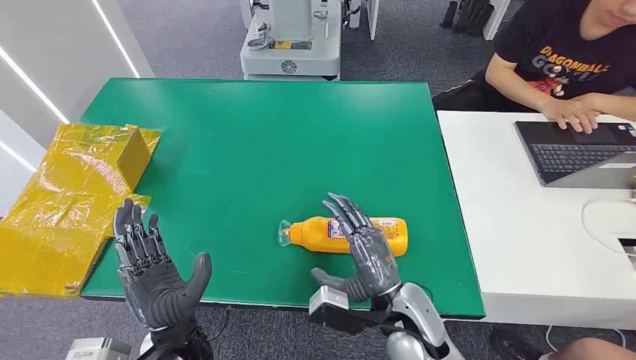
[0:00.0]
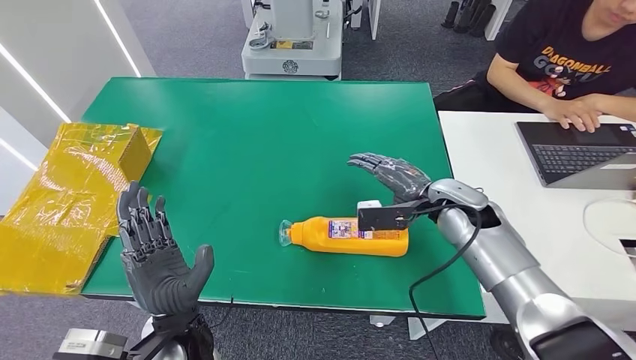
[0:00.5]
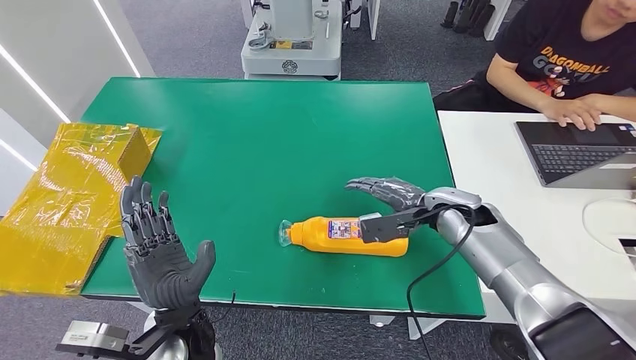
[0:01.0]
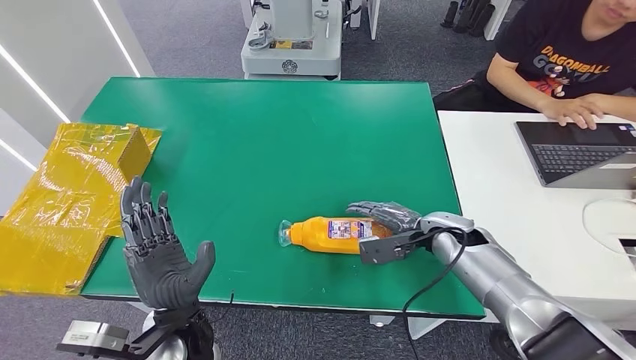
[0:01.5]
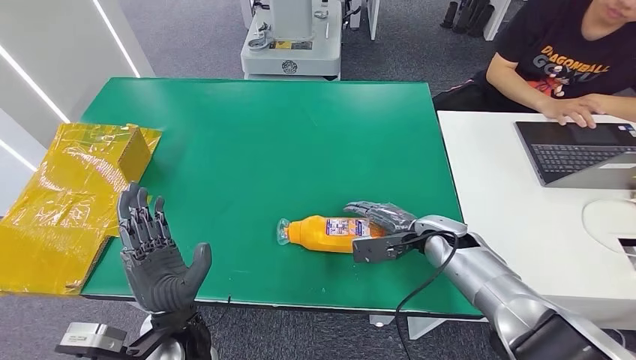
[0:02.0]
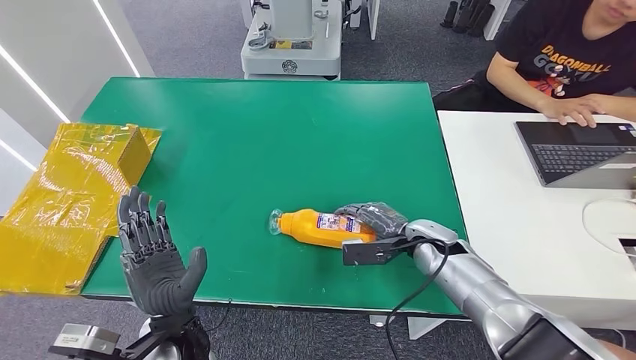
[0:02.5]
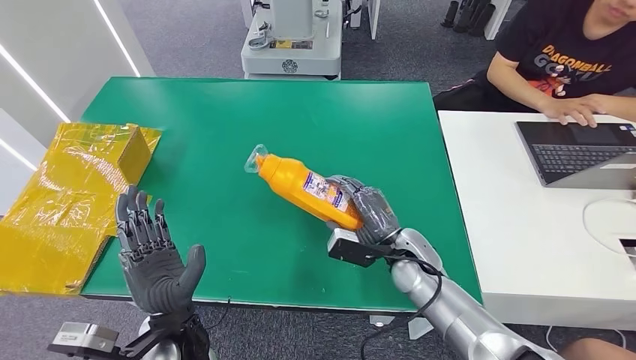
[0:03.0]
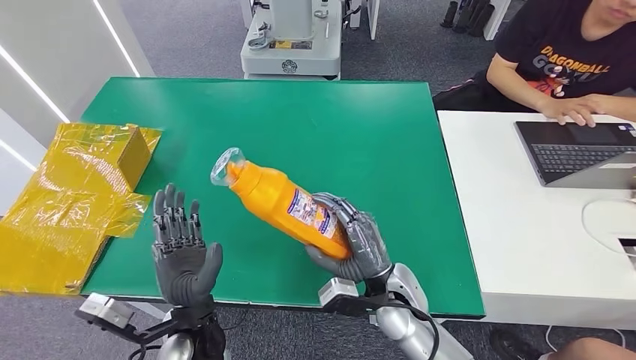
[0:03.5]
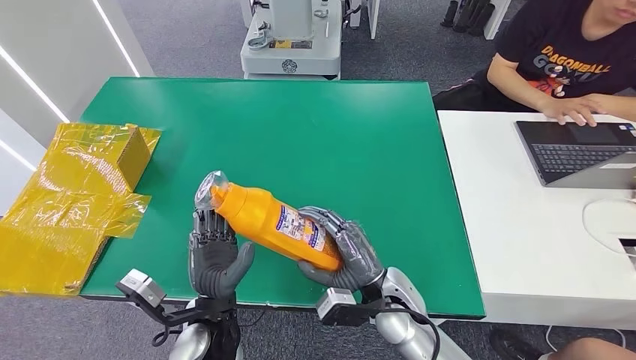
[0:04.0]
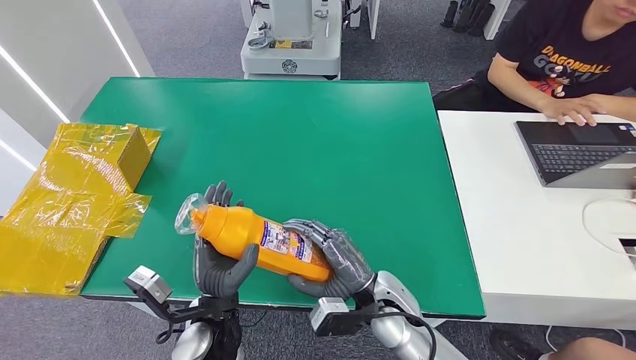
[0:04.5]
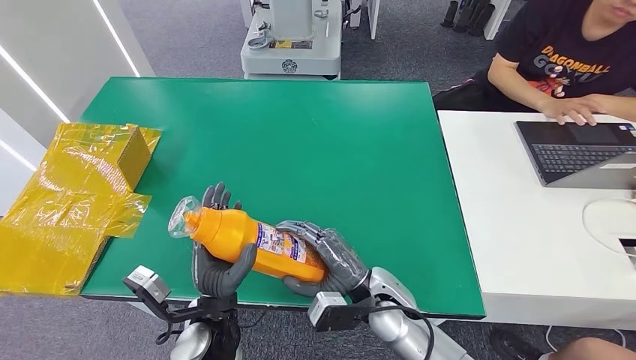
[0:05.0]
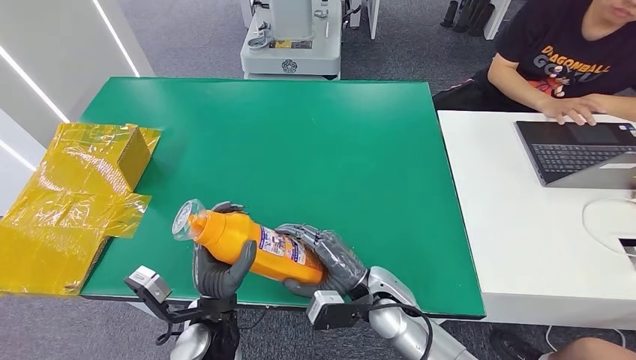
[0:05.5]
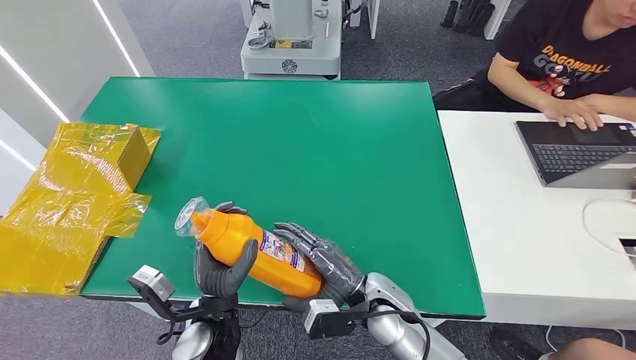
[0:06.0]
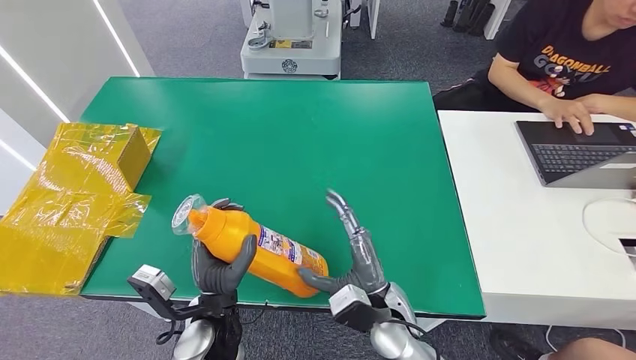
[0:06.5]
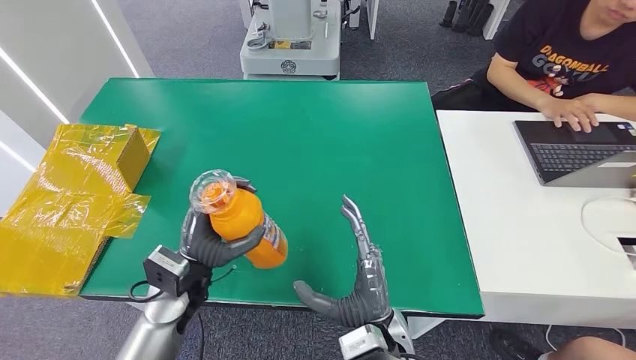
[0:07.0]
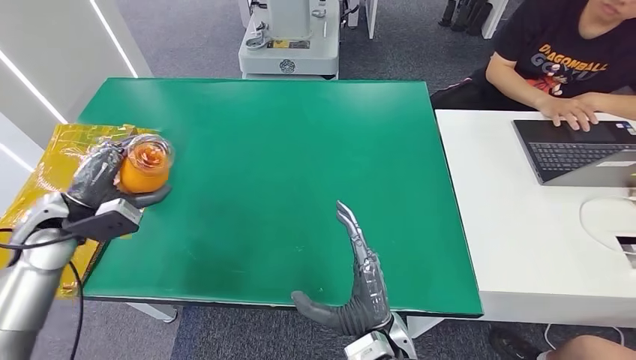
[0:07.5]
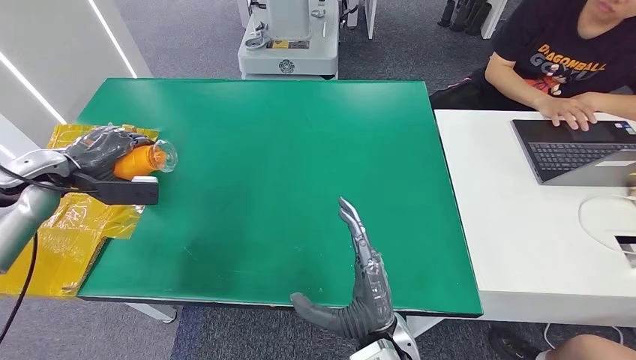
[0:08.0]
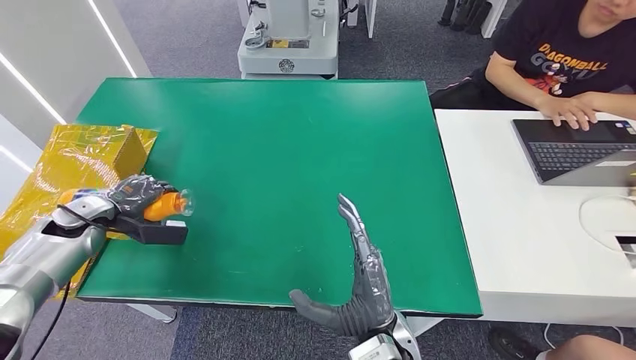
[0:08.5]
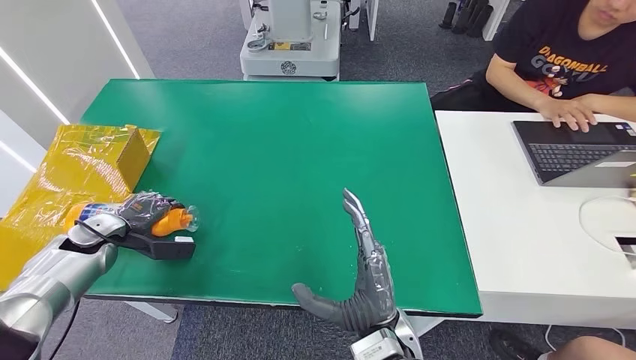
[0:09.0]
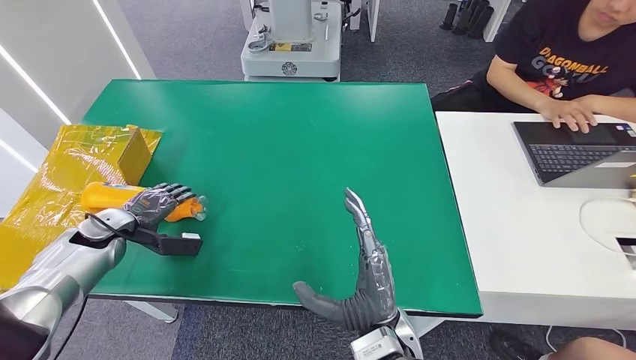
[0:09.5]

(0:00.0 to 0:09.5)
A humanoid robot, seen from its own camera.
Step, 0:00.0 - 0:03.5: Pick up the bottle from the table.
Step, 0:04.0 - 0:09.5: Turn the bottle to the front side.
0:02.0 - 0:04.0: The right hand is displaced to the left and backward by about 15 cm.
0:04.0 - 0:05.5: The hands make only small movements.
0:07.5 - 0:09.5: The left hand is displaced downward by approximately 10 cm.
